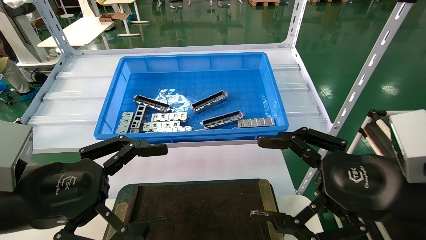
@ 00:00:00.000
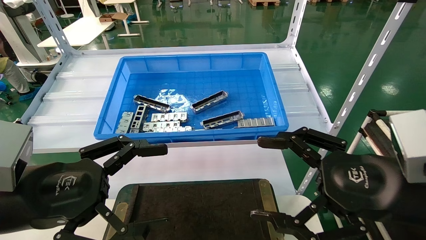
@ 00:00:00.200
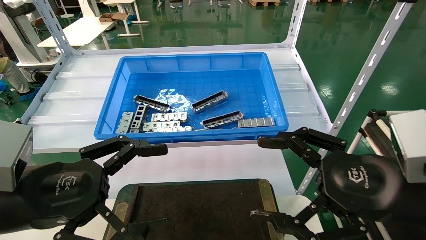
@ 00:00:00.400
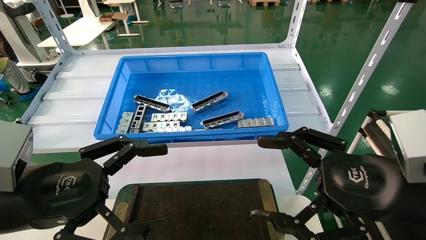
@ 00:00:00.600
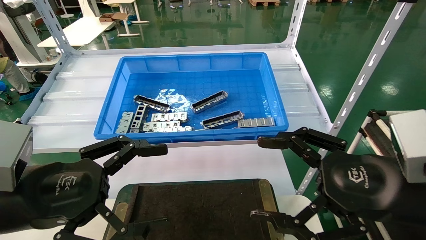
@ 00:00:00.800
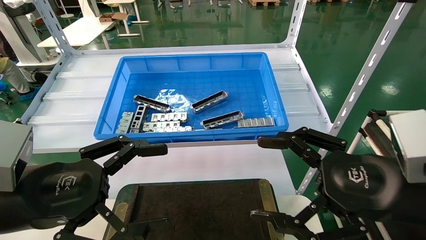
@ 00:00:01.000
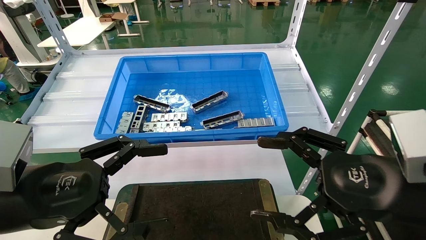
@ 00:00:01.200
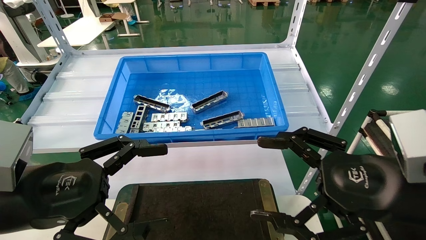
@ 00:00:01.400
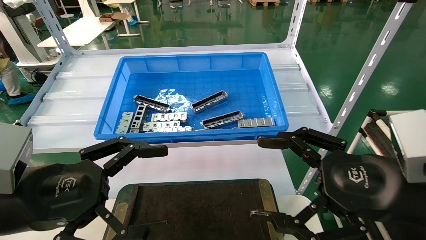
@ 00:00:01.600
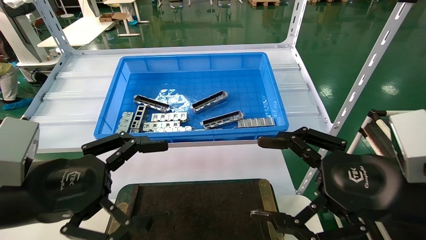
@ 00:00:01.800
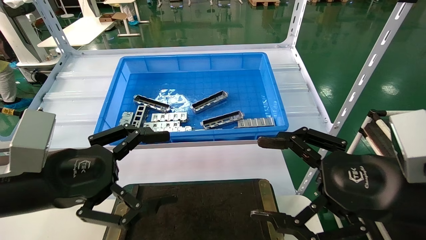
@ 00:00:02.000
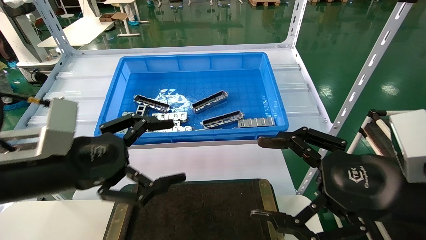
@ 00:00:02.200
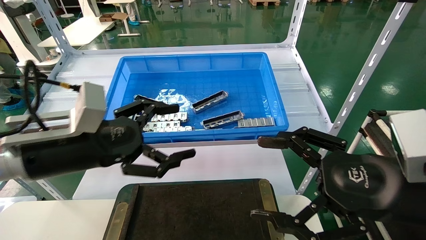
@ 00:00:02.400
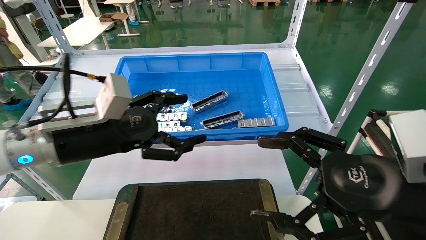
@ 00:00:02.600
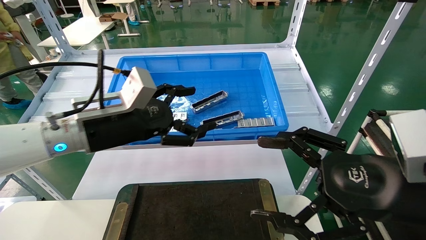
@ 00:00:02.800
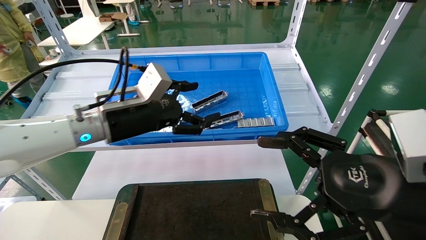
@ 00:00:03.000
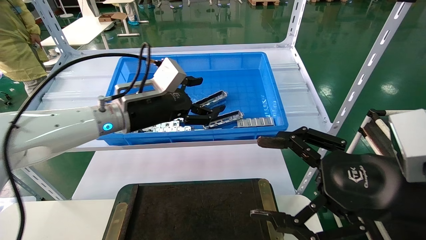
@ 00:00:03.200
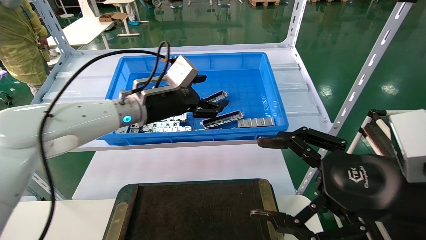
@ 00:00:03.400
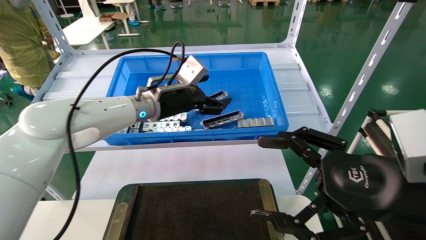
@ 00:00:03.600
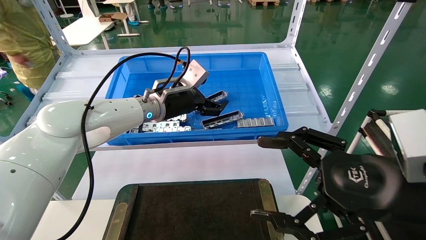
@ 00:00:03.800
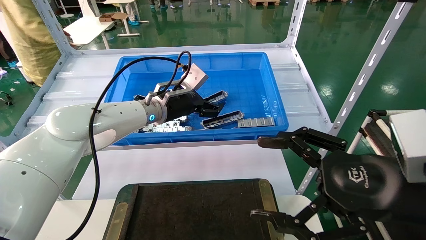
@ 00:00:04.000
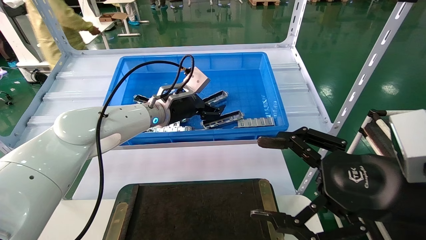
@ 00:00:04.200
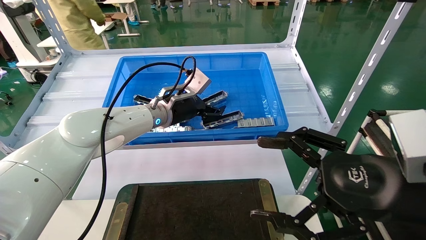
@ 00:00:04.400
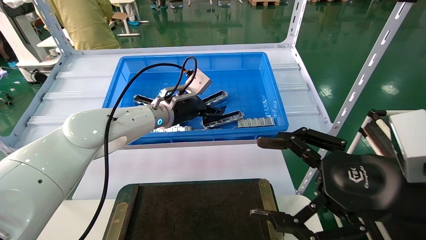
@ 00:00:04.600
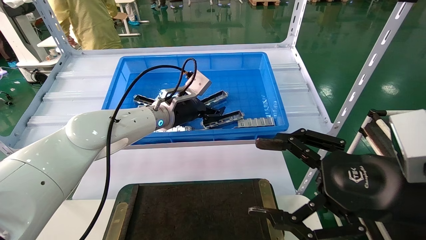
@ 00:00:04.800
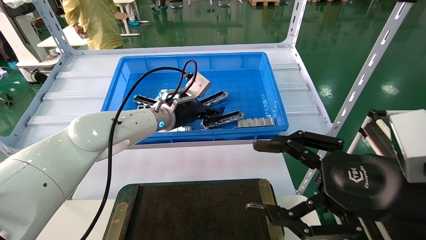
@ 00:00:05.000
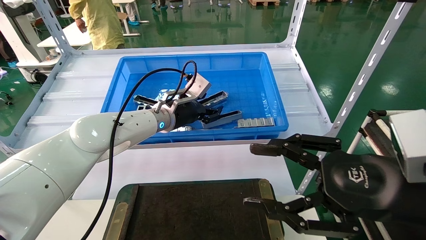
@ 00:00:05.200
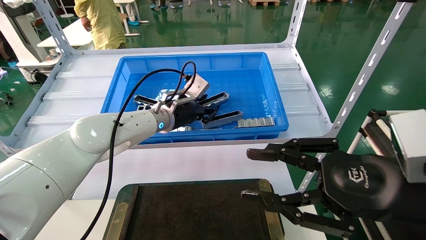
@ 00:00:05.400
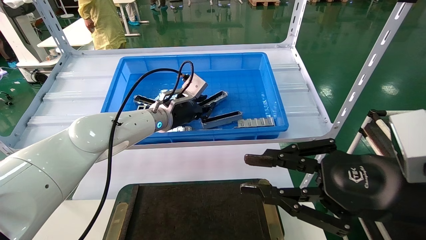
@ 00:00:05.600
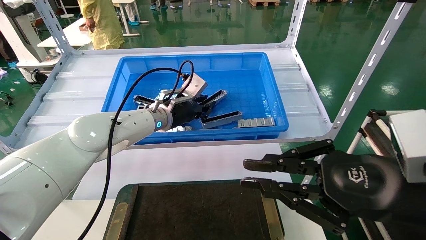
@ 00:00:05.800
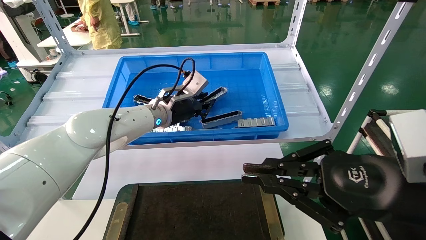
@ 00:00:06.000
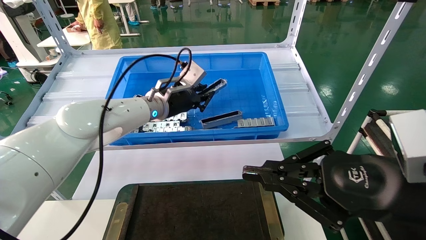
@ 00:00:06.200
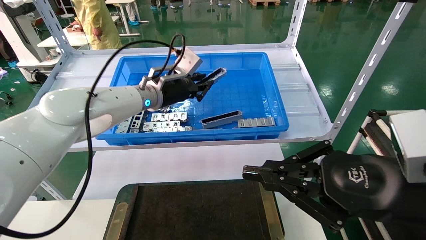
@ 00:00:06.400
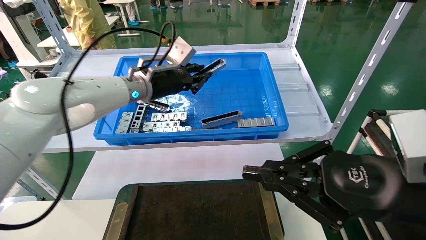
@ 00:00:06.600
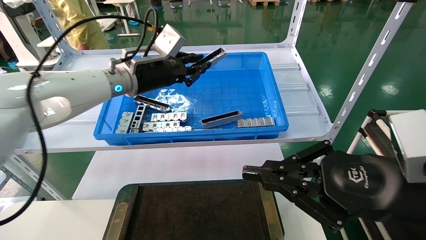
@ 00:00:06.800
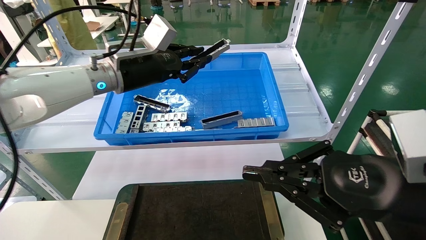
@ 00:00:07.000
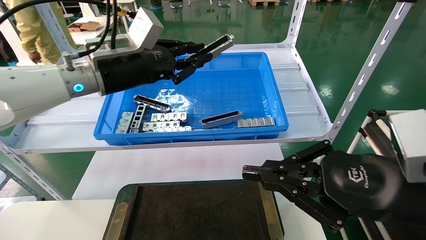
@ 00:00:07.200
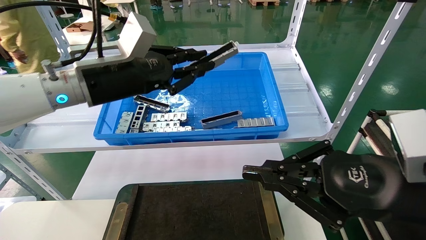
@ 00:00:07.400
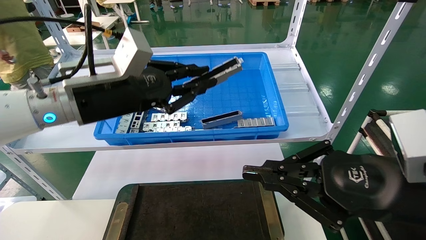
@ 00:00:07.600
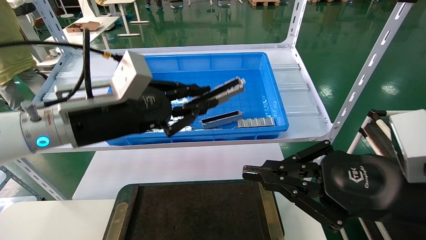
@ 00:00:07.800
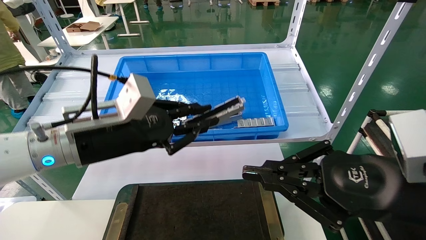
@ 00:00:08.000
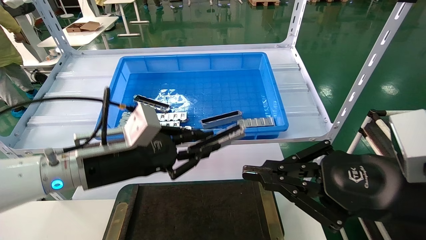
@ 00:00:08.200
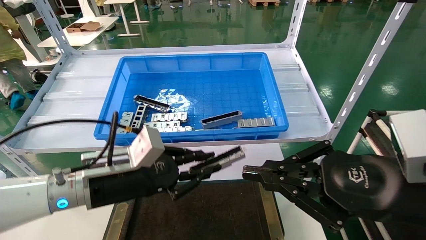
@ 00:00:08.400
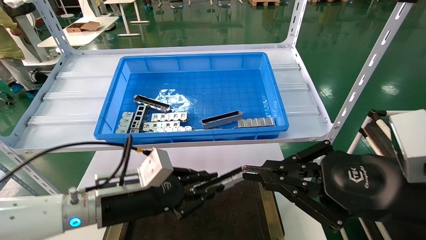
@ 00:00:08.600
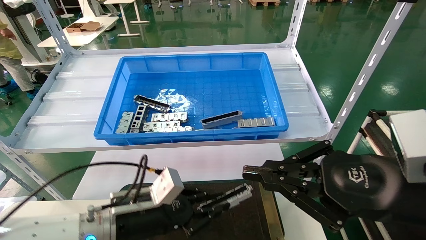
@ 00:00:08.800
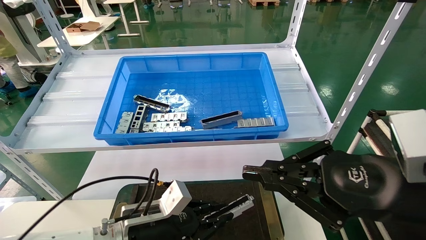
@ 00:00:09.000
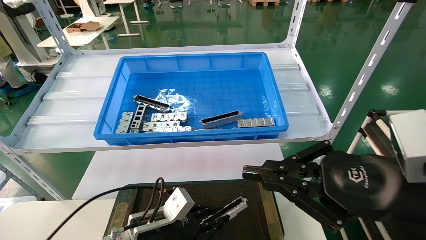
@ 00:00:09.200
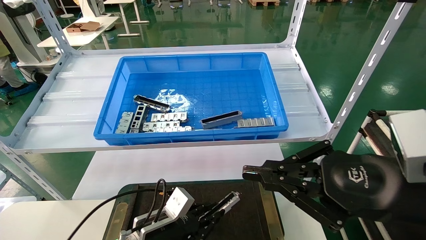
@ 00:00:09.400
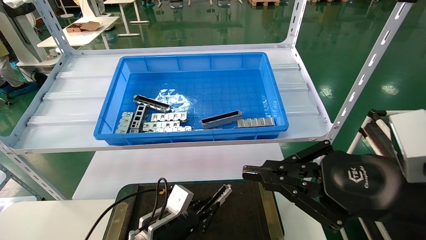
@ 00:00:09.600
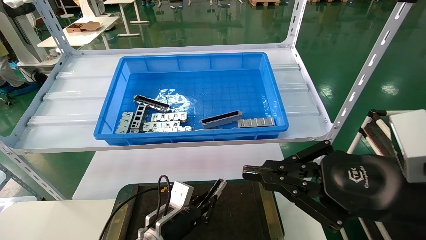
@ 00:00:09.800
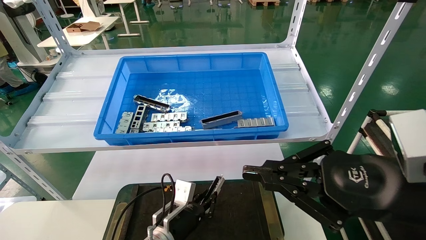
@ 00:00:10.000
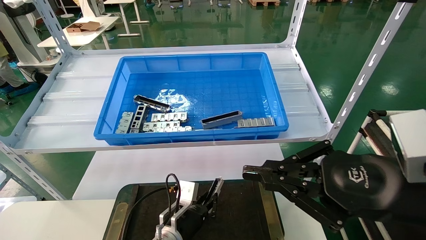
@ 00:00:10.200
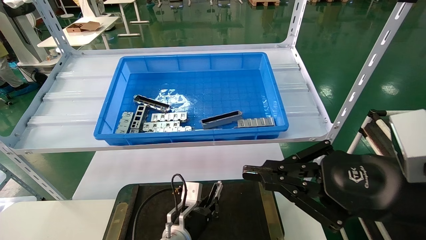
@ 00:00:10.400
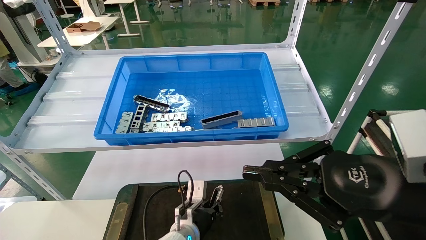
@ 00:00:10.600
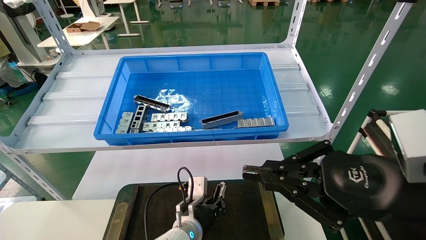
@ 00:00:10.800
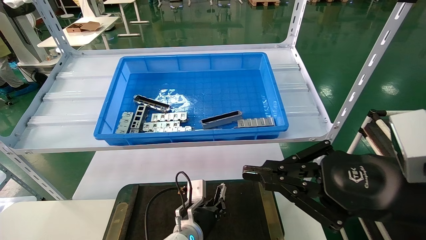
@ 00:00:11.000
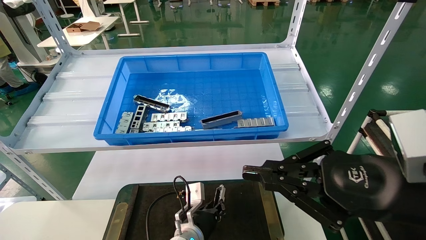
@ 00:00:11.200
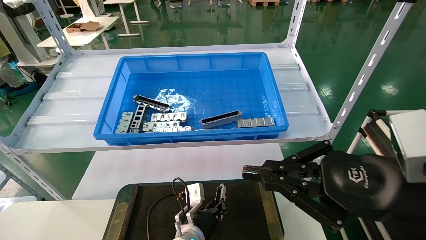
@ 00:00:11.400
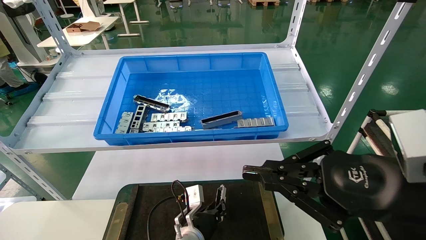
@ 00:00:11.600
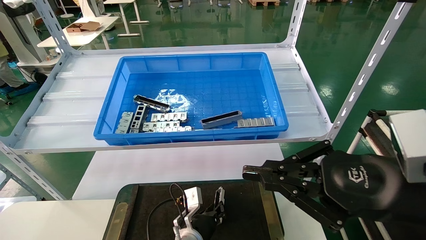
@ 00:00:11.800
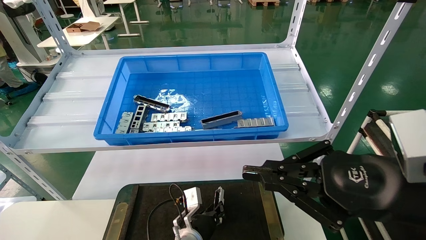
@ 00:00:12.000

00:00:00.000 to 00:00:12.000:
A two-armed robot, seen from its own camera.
Task of the whole recording: Grasp the part with one hand and place it on the black container.
Step, 00:00:02.200 to 00:00:05.600: Pick up the front USB bracket from the feeding area.
00:00:00.000 to 00:00:01.600: The two grippers keep their place.
00:00:01.600 to 00:00:03.000: The left gripper travels forward and to the right by about 20 cm.
00:00:03.000 to 00:00:04.400: The left gripper travels forward and to the right by some 15 cm.
00:00:04.400 to 00:00:06.000: The left gripper closes up. Meanwhile the right gripper closes up.
00:00:06.000 to 00:00:07.600: The left gripper travels backward and to the left by approximately 20 cm.
00:00:07.600 to 00:00:09.000: The left gripper goes roughly 25 cm downward.
00:00:09.000 to 00:00:10.400: The left gripper moves to the right, downward and forward, approximately 15 cm.
00:00:10.400 to 00:00:12.000: The grippers move only a little.

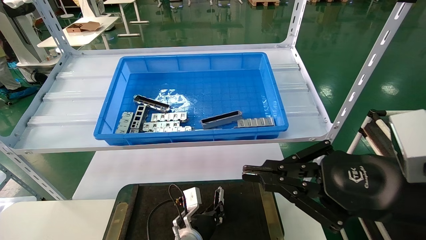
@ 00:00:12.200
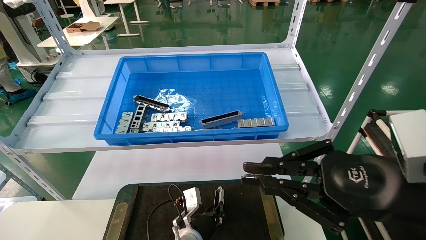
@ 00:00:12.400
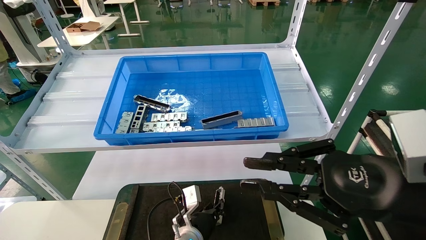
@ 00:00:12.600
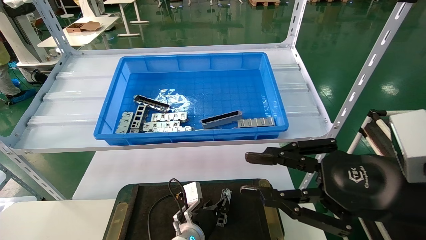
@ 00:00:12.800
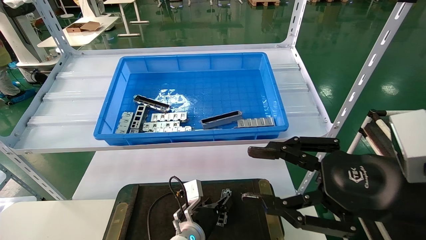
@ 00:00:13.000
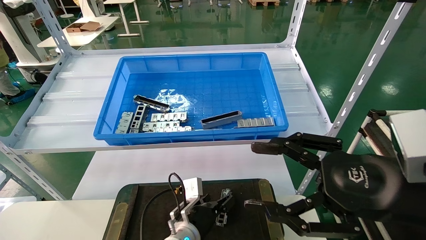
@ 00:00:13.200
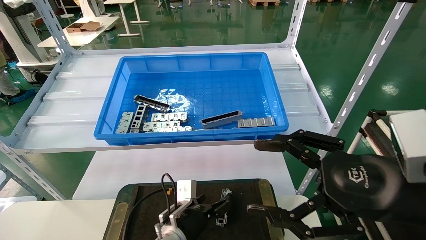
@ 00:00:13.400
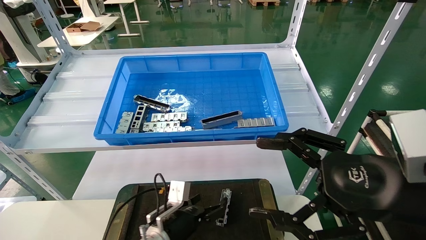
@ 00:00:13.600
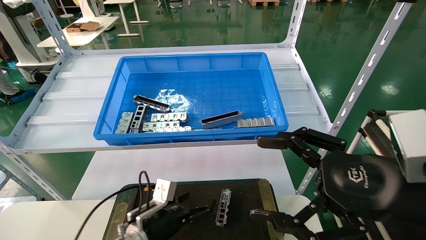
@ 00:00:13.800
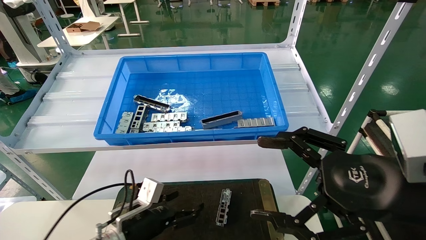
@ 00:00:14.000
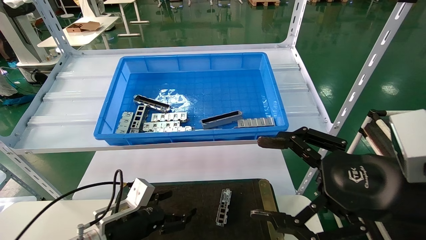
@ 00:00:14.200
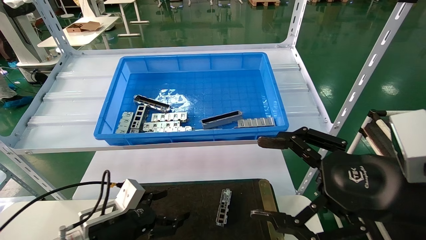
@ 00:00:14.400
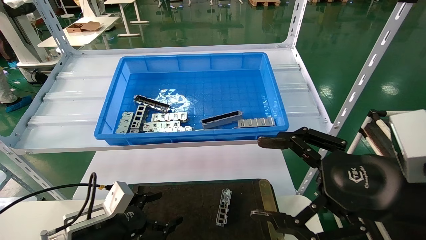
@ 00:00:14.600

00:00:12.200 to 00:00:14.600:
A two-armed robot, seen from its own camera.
Task of the whole recording: Grasp the part with one hand and place it on the black container.
00:00:12.200 to 00:00:13.400: The left gripper moves some 5 cm, and opens its fingers. Meanwhile the right gripper opens.
00:00:13.400 to 00:00:14.600: The left gripper heads to the left, covering about 15 cm.
